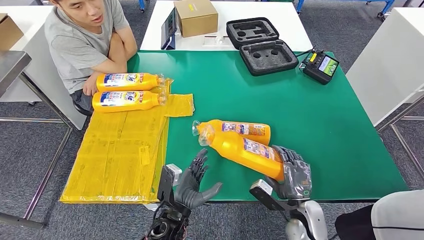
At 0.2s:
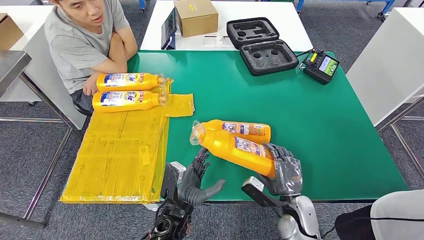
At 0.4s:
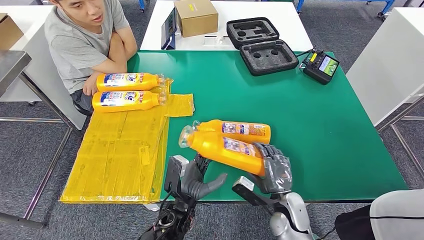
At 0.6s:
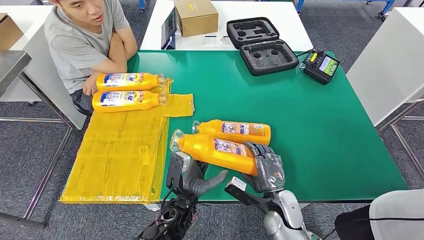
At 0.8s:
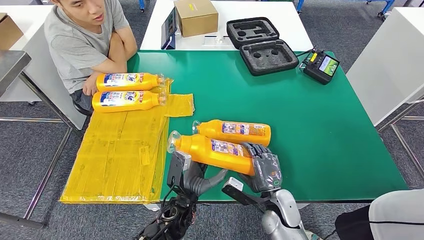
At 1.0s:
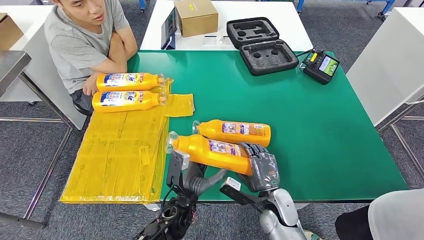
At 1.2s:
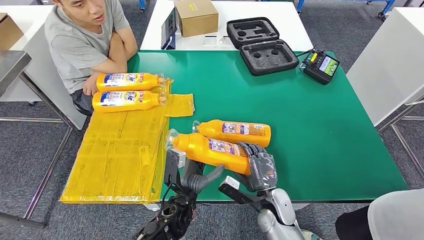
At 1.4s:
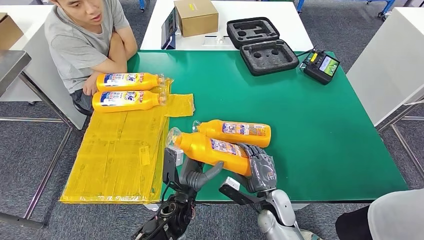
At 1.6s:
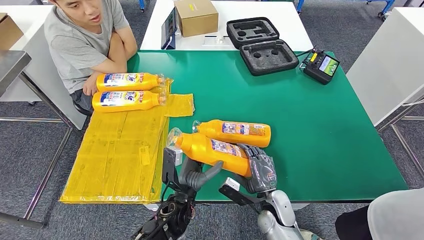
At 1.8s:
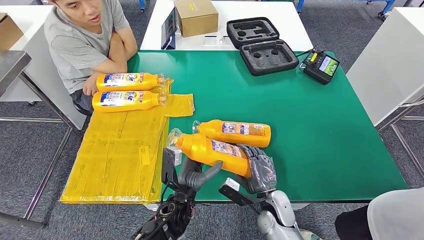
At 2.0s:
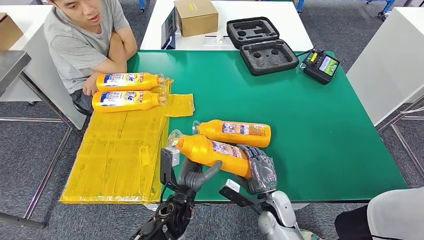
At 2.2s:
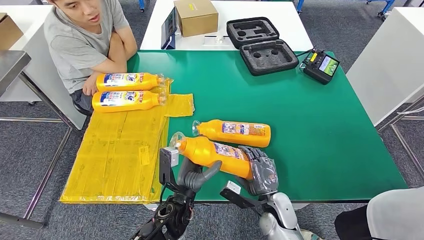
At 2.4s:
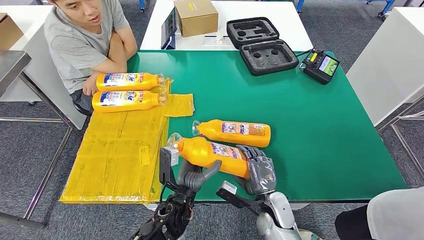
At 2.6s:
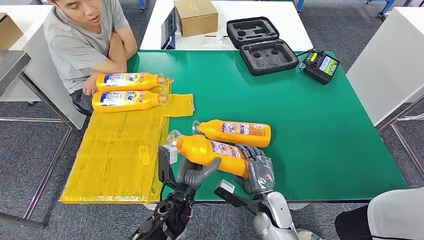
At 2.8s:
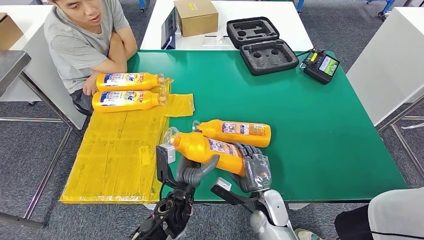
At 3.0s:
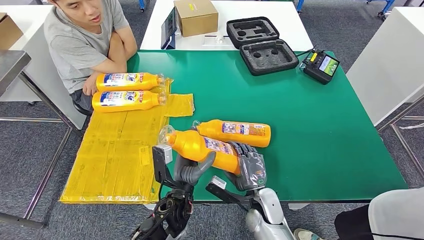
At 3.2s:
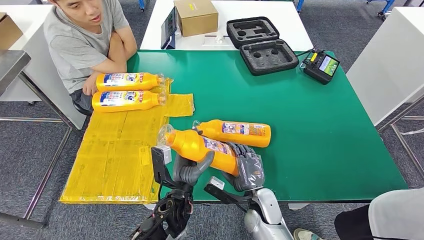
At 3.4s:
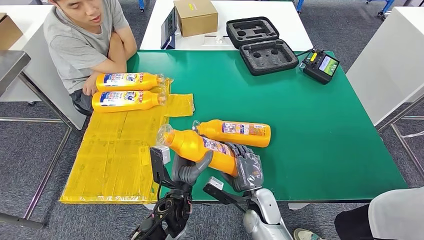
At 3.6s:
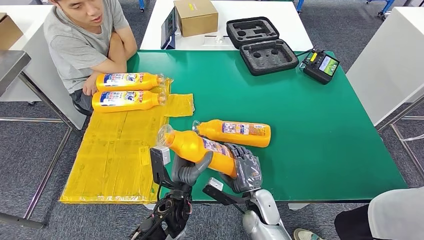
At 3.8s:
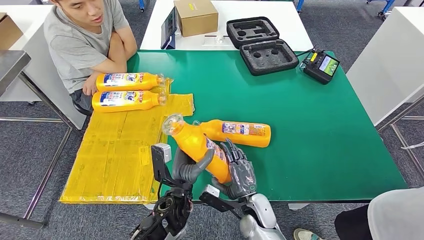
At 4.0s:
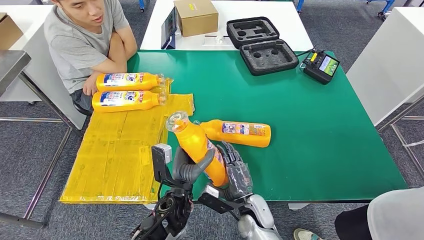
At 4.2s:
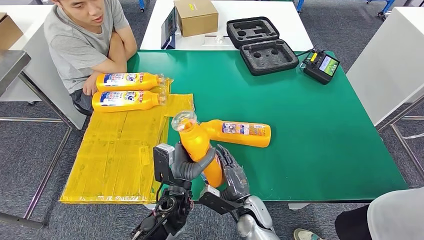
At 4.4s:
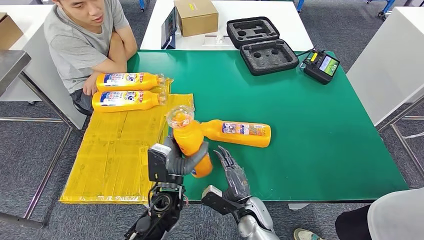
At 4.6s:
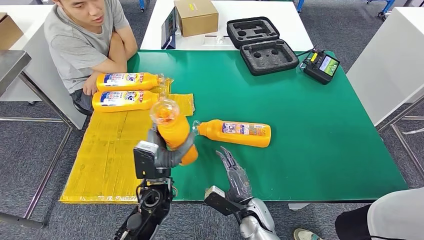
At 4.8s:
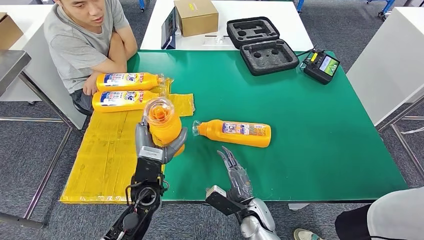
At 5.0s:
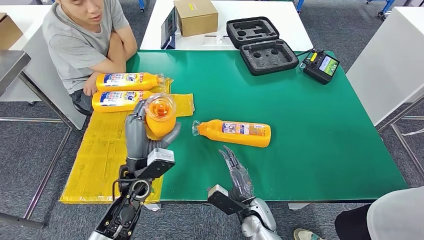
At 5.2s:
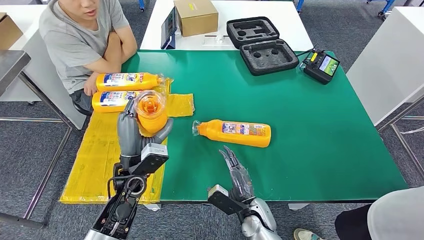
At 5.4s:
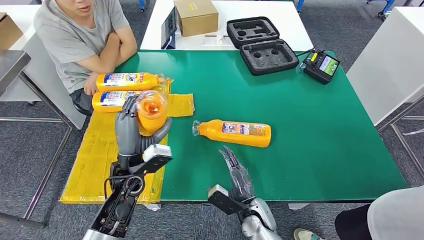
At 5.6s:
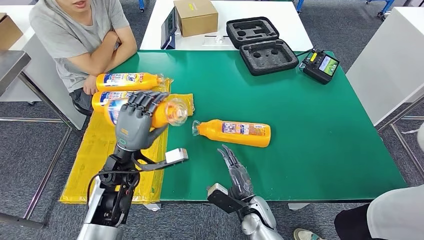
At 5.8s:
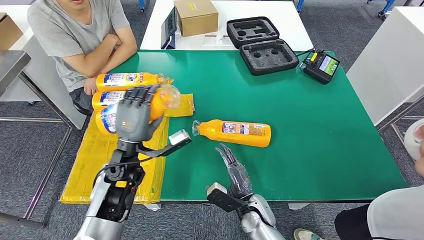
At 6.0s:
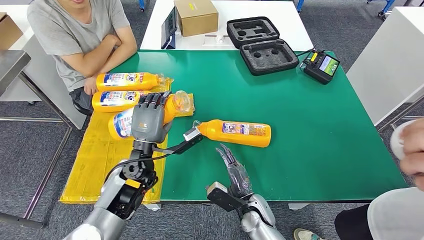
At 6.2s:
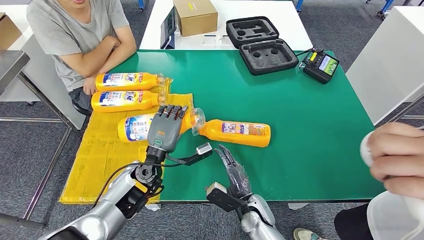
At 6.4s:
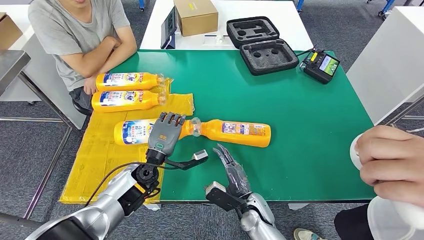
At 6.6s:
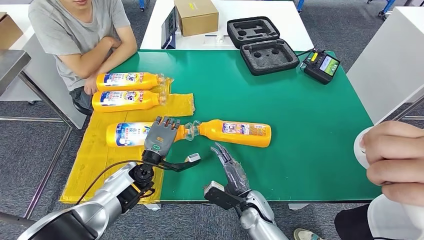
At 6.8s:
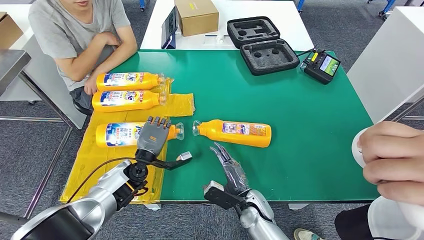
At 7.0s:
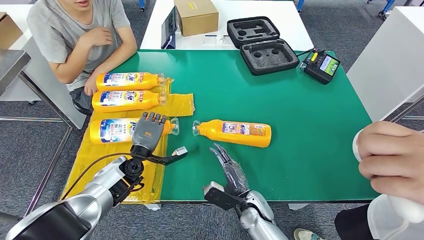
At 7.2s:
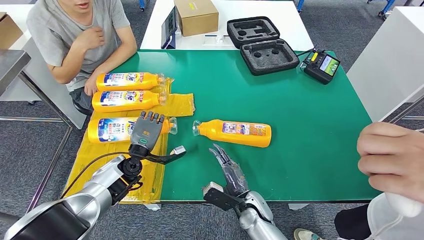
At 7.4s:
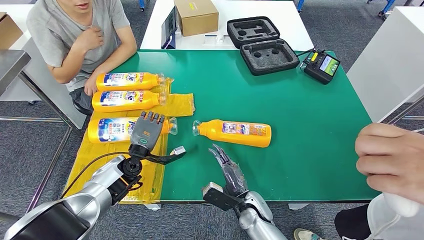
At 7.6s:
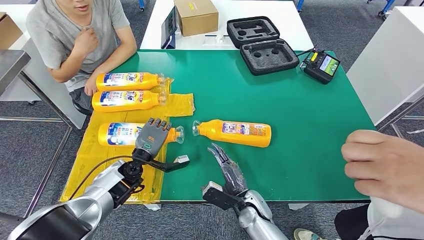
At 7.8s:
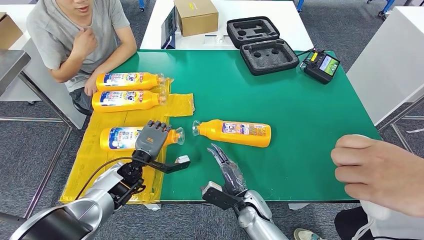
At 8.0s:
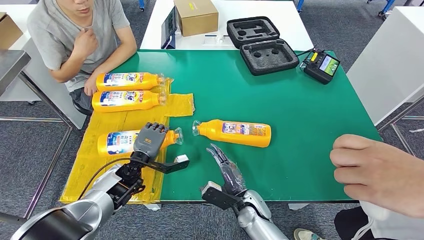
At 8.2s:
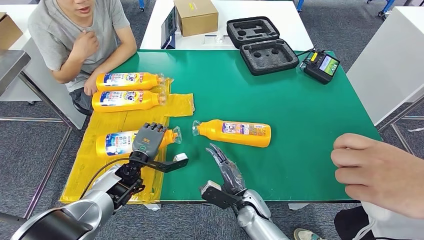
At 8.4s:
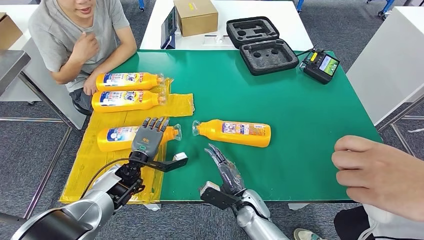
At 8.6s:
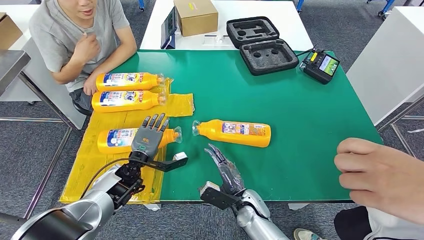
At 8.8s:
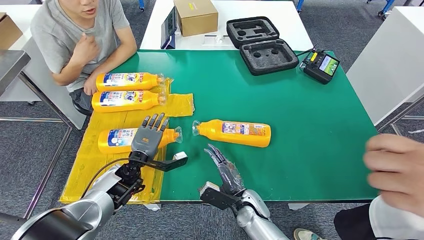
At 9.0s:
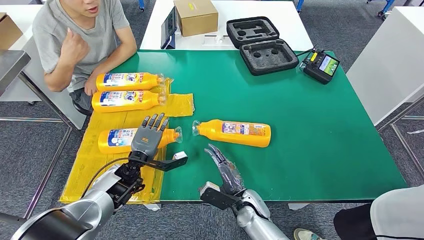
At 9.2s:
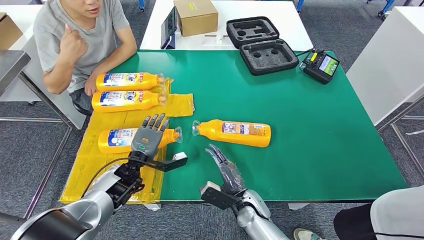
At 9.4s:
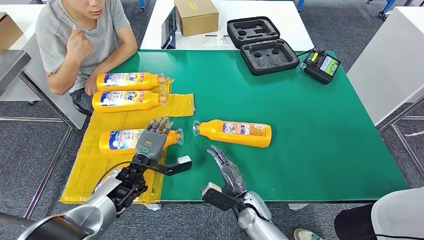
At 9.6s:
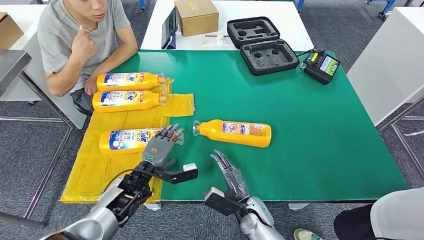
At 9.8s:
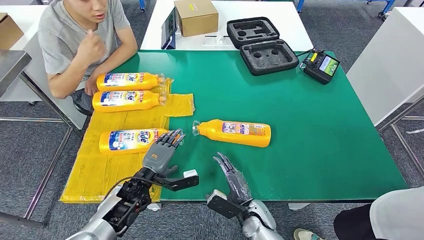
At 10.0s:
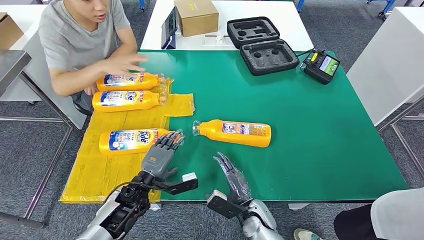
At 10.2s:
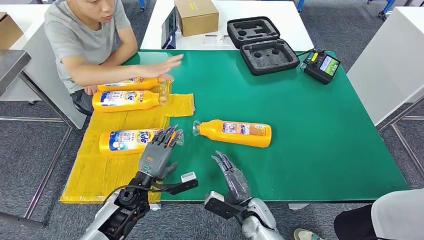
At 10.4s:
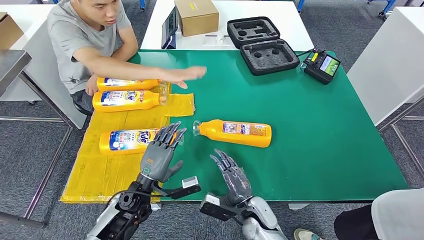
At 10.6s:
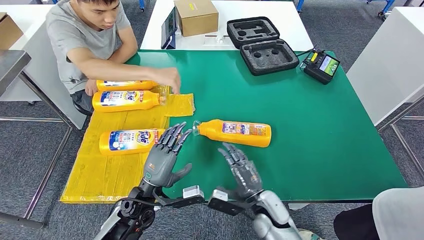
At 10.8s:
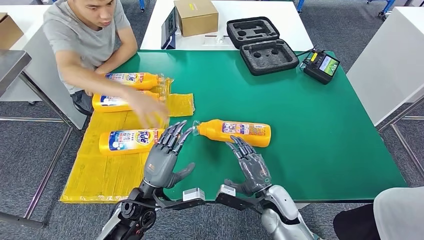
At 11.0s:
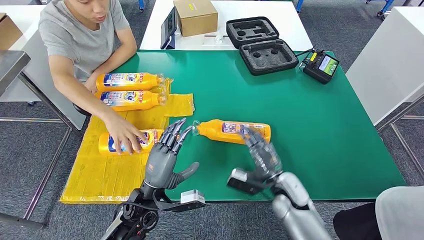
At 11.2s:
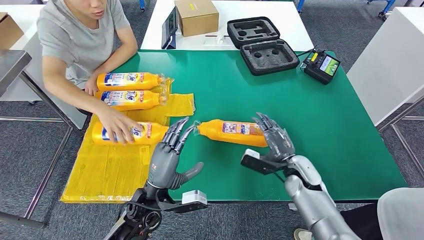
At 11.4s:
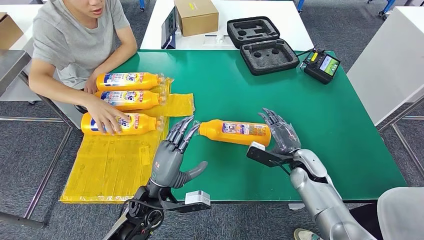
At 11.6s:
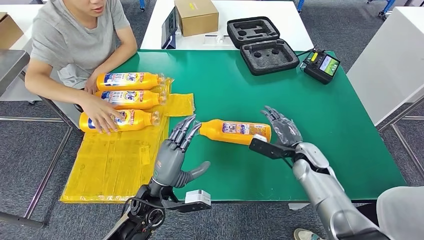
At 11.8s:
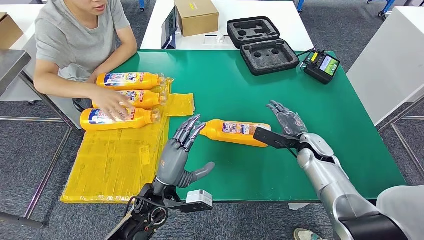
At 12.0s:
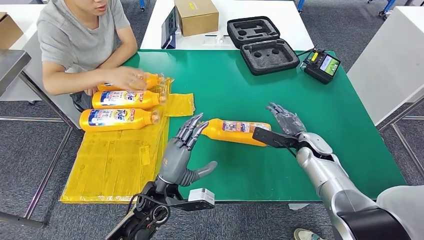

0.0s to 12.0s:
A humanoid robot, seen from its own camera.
Step, 0.0s to 2.8s: Pick up the fast-moving consumer goods bottle from the table.
Step, 3.0s to 8.2s: Flip the fast-moving consumer goods bottle to the front side.
0.0s to 1.6s: The right hand goes roughly 10 cm to the left.
1.6s to 3.0s: There are only small adjustments of the hands.
4.4s to 6.0s: The left hand heads to the left and forward, covering about 10 cm.
6.0s to 7.6s: The left hand travels downward by roughly 5 cm.
7.6s to 9.0s: The hands stay close to where they were, moving slightly.
9.0s to 10.4s: The left hand travels backward by some 10 cm.

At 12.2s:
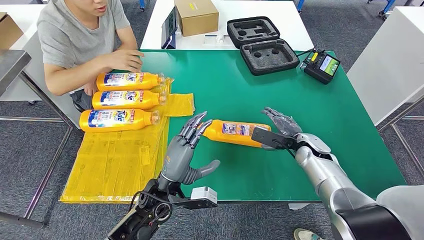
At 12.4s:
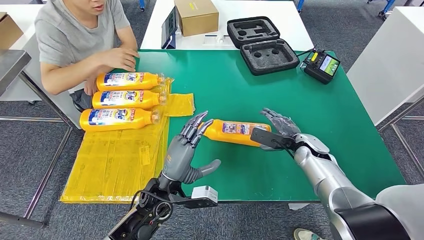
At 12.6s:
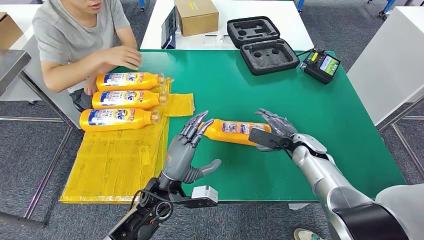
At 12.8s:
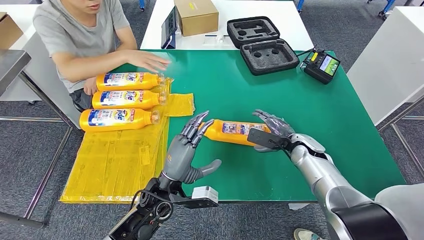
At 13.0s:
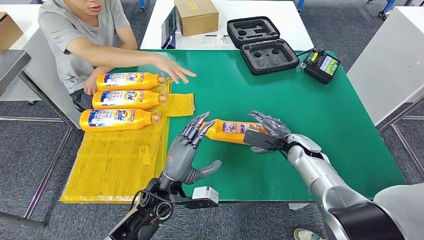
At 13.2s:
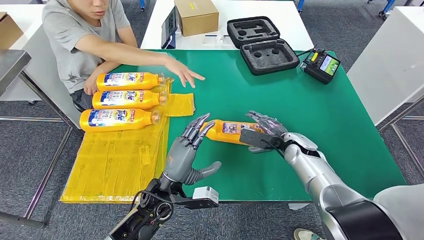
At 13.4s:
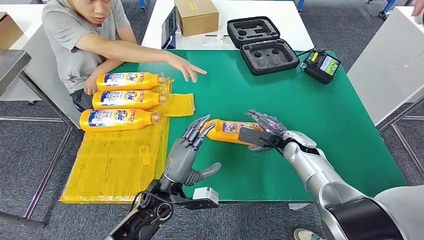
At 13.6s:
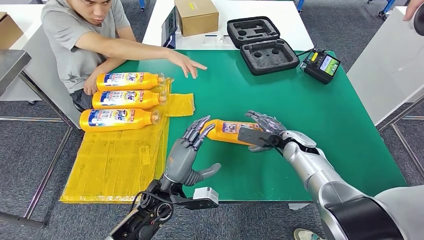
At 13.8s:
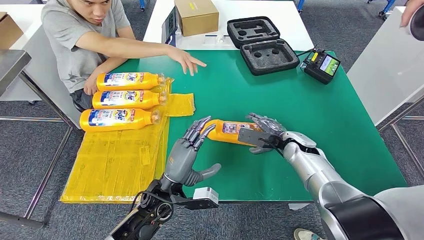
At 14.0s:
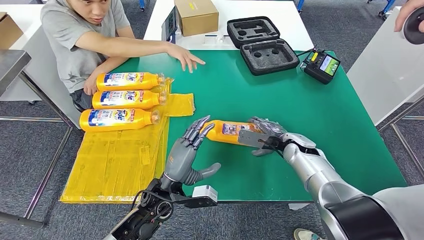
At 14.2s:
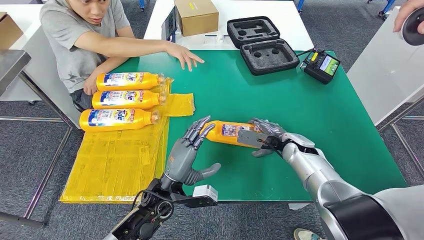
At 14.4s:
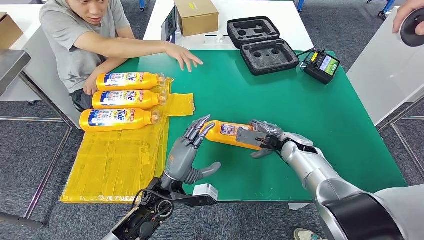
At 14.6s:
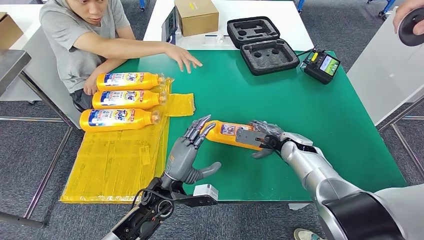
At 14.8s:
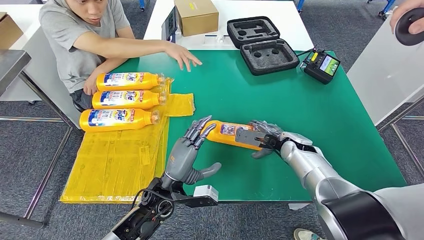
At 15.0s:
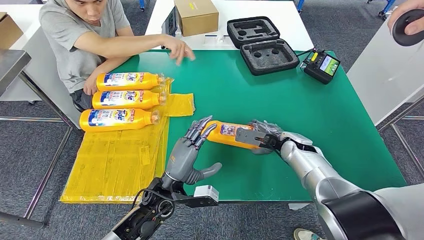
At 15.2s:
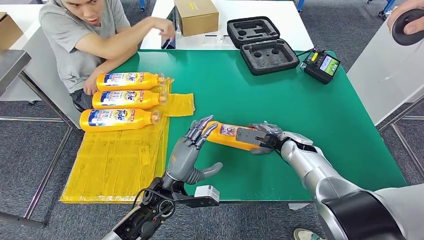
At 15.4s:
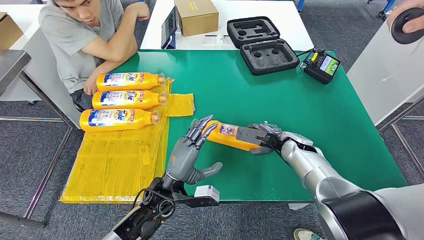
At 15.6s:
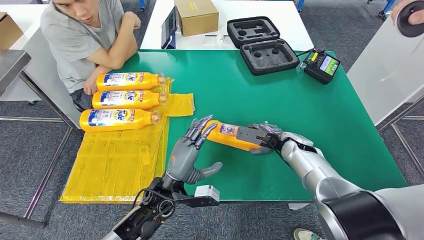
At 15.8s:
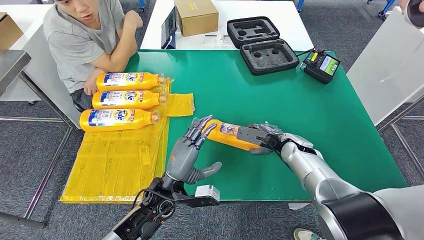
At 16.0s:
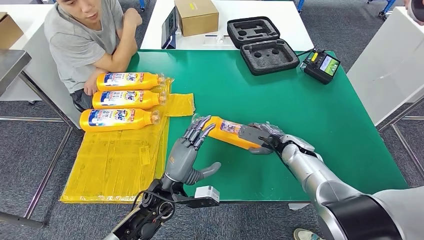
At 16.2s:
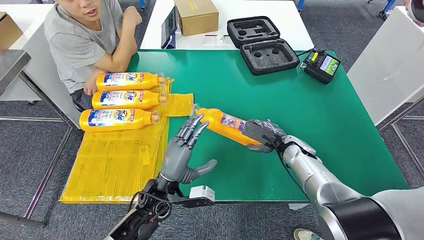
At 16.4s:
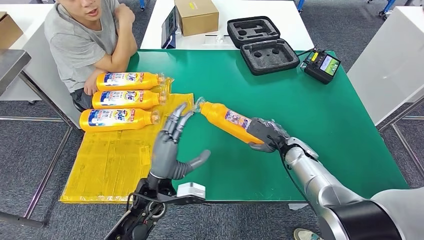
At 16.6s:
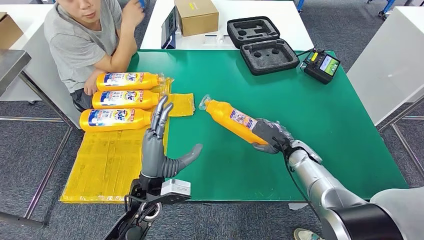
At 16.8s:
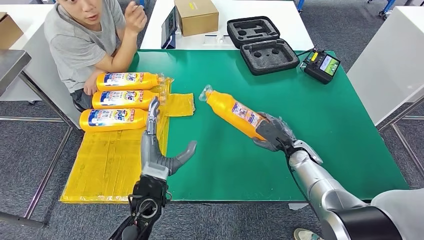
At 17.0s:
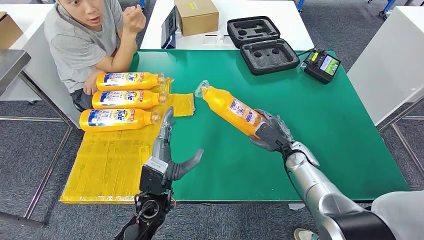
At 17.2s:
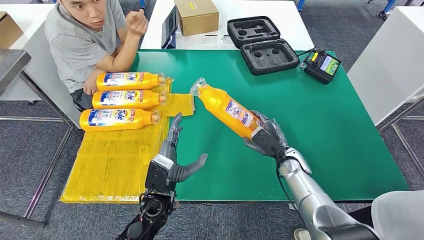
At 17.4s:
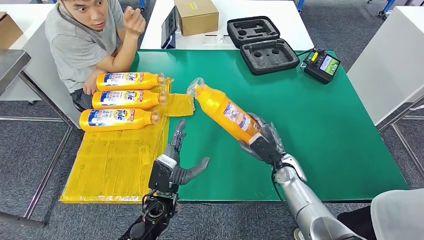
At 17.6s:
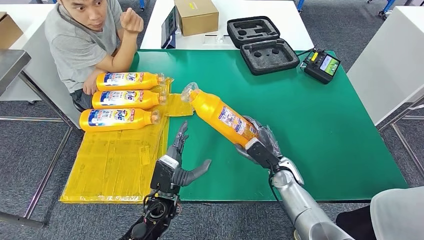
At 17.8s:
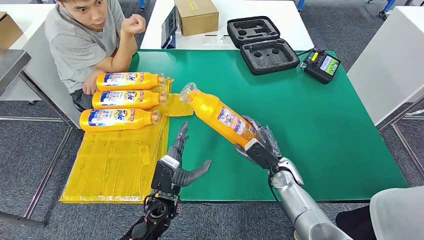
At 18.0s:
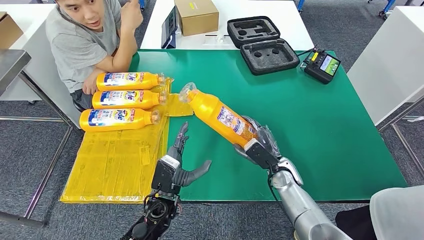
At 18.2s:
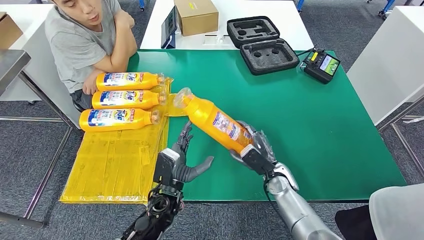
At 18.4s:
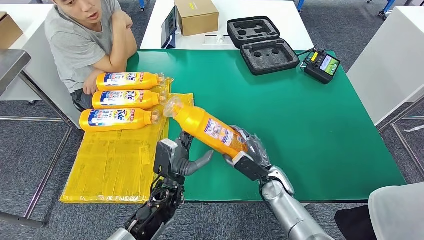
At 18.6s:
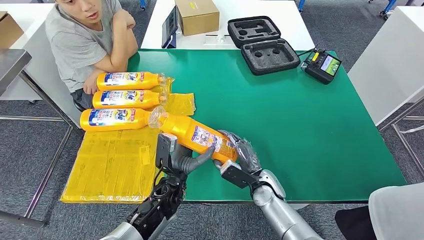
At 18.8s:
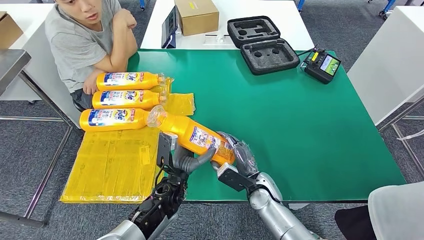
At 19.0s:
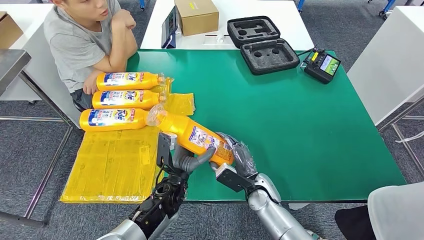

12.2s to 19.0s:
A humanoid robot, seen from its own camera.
12.2s to 15.0s: The hands move only a little.
15.0s to 16.2s: There are only small adjustments of the hands.
16.2s to 17.6s: The right hand moves backward, roughly 5 cm.
17.6s to 19.0s: The right hand heads to the left, covering approximately 10 cm.
